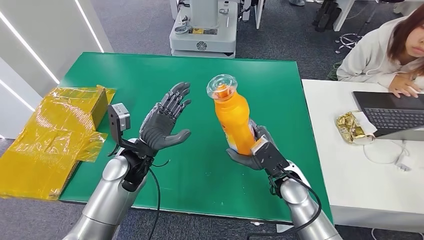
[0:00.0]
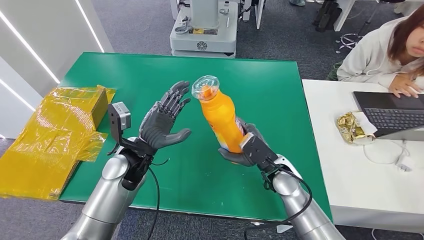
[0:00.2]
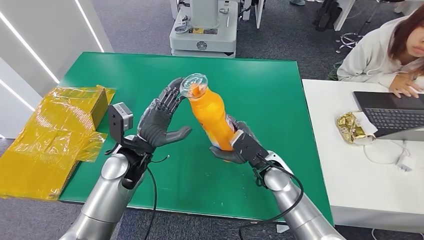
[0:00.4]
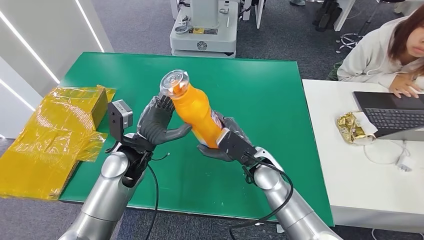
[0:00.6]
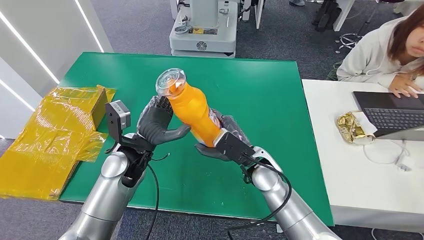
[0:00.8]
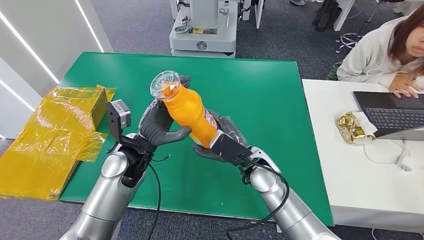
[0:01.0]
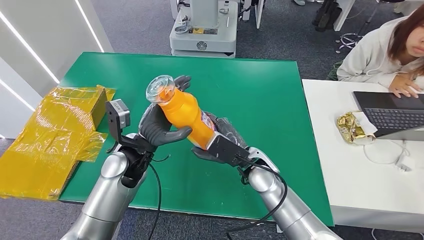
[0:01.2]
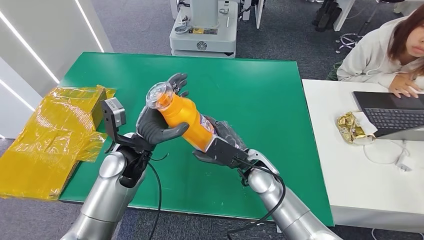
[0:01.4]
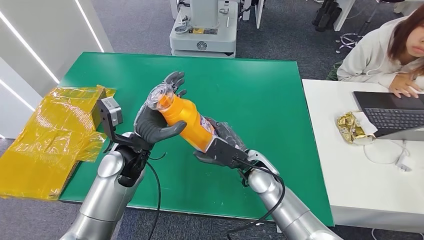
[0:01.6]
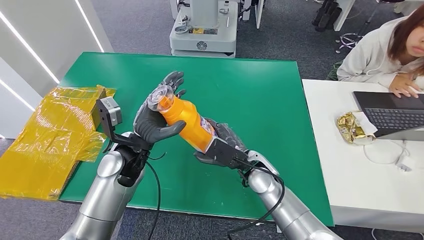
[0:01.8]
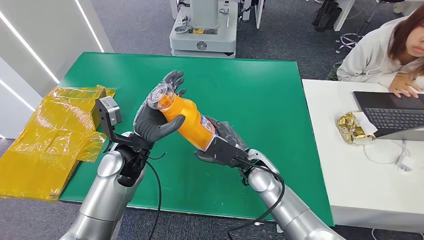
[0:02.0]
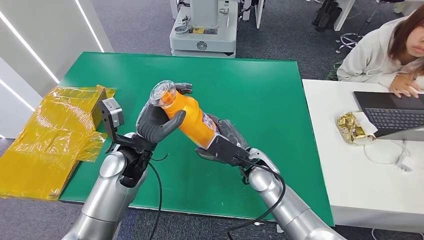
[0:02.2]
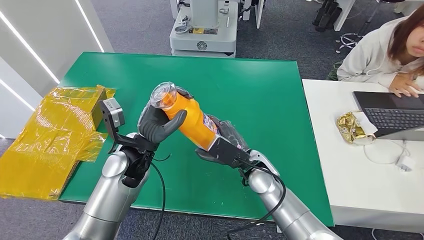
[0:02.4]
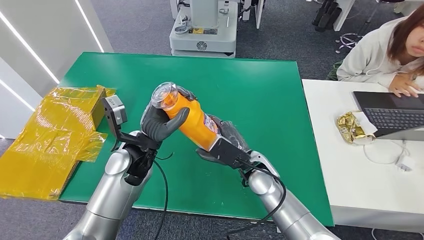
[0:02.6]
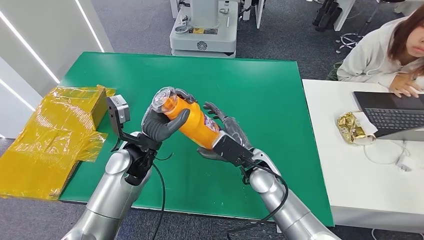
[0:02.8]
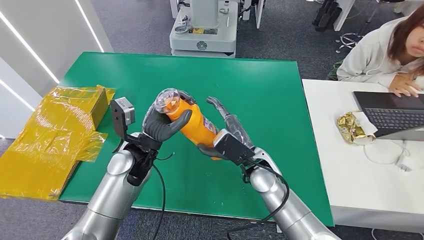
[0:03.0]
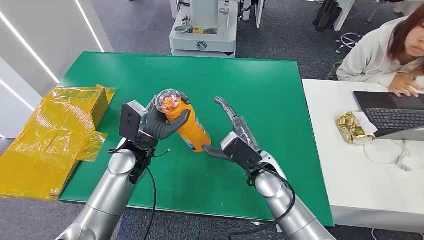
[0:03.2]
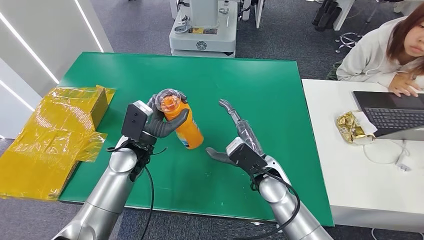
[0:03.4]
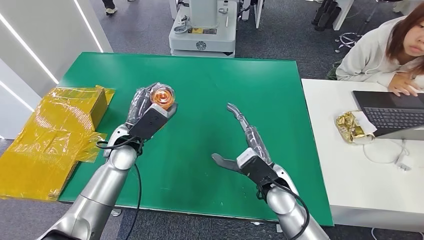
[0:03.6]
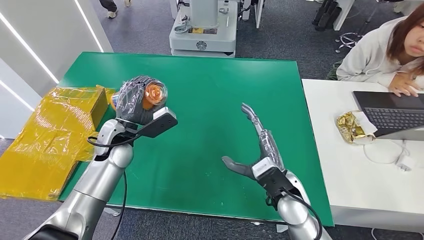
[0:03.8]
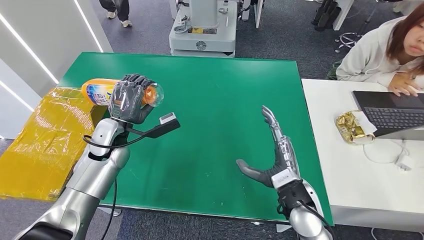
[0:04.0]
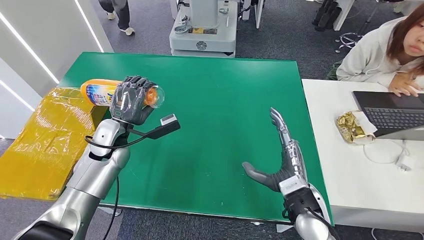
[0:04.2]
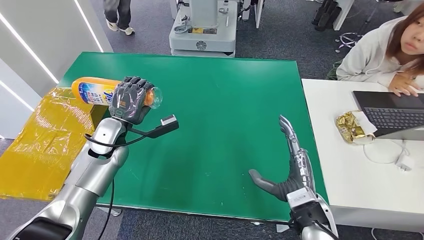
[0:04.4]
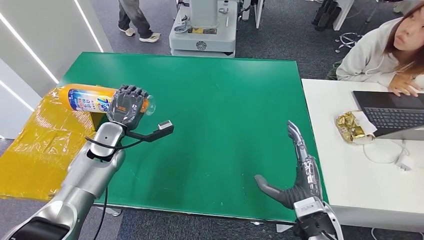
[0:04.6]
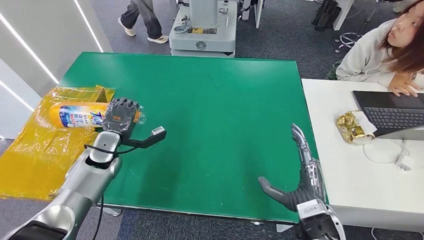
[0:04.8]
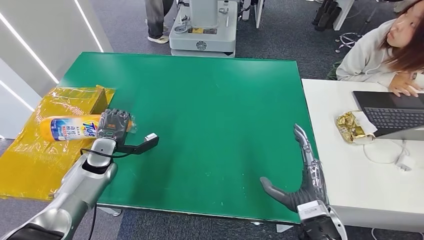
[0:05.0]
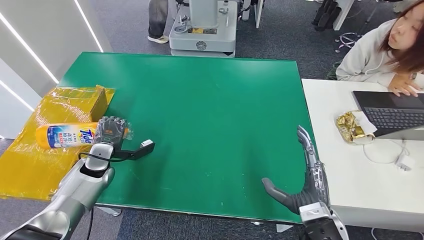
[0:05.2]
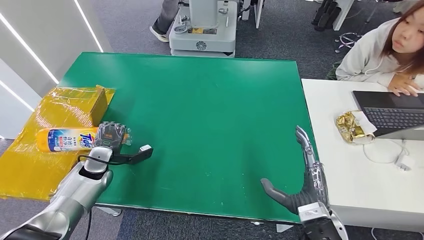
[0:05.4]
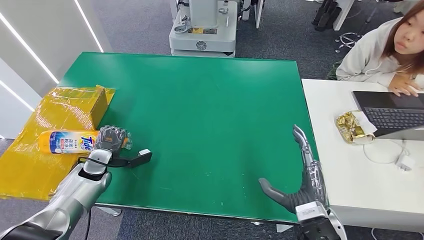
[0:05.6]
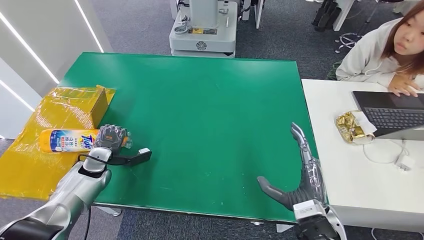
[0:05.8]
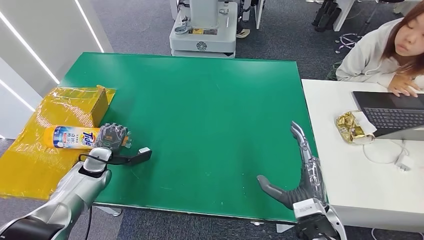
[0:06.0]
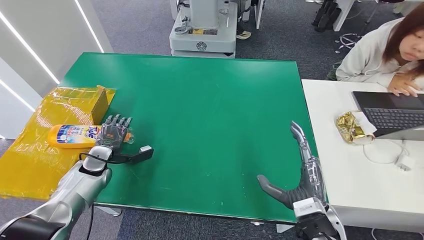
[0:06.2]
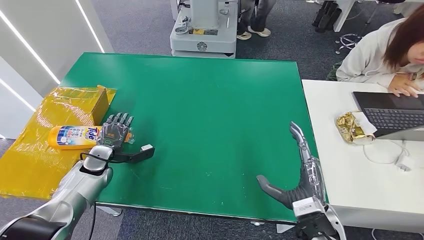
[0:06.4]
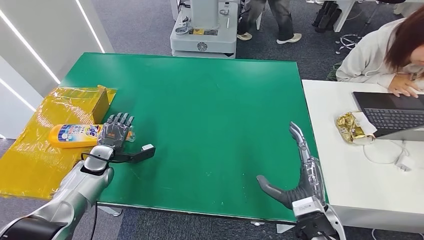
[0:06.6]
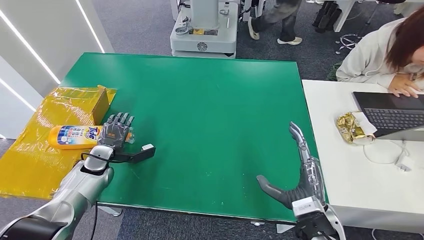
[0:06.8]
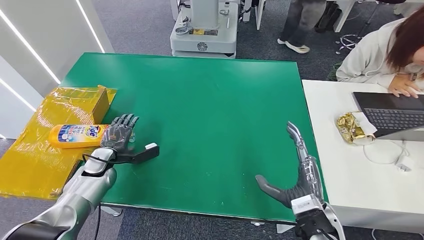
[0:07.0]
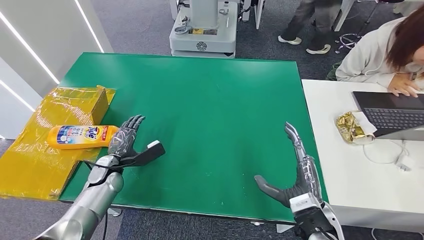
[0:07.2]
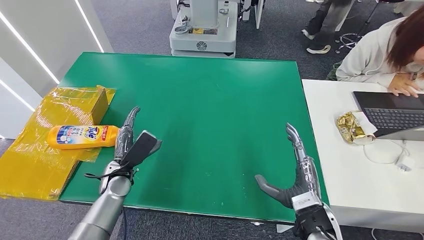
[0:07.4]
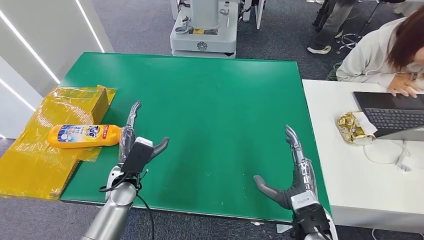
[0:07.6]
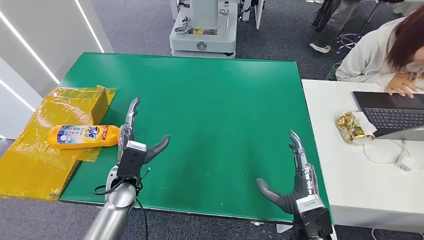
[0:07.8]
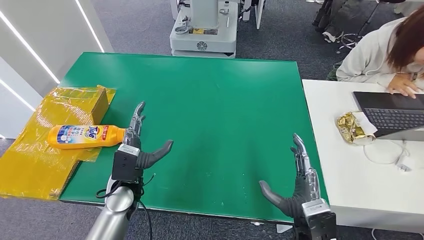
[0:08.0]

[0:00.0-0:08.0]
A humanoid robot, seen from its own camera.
Step, 0:00.6 to 0:08.0: Turn the bottle to the front side.
0:00.0 to 0:01.6: The right hand moves to the left, roughly 10 cm.
0:01.6 to 0:03.2: There are only small adjustments of the hands.
0:04.8 to 0:06.4: The left hand travels downward and to the left by roughly 10 cm.
0:06.4 to 0:08.0: The left hand shifts some 20 cm to the right and backward.
